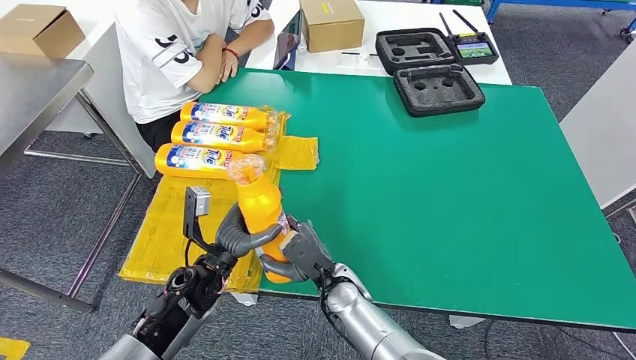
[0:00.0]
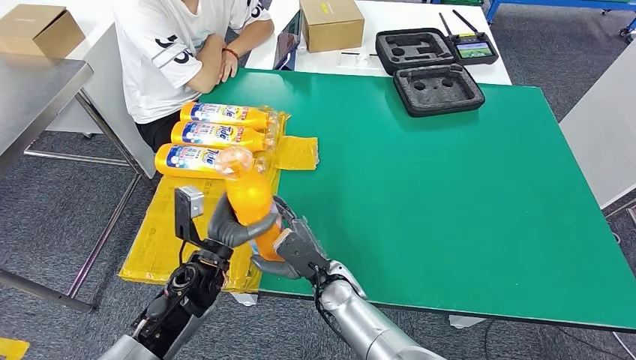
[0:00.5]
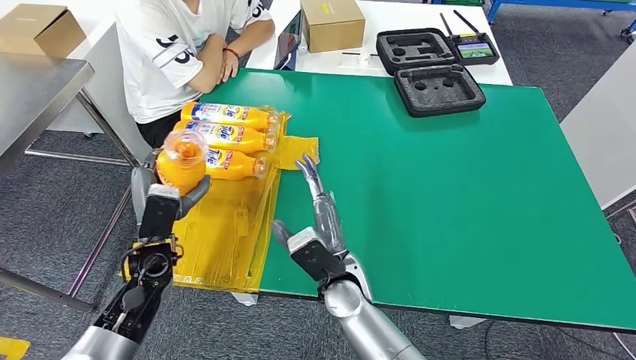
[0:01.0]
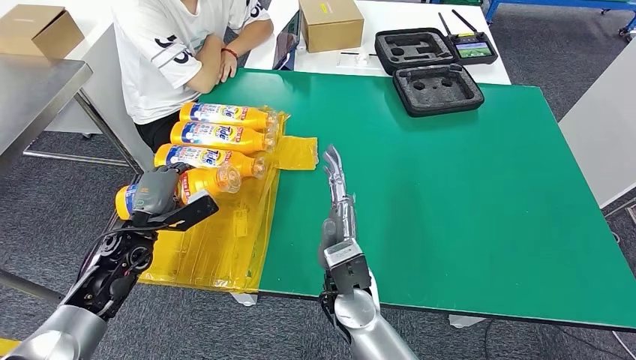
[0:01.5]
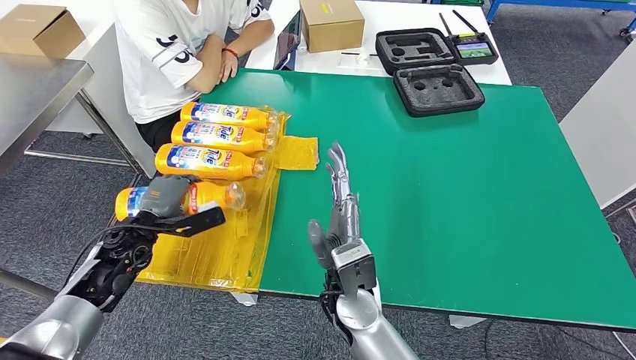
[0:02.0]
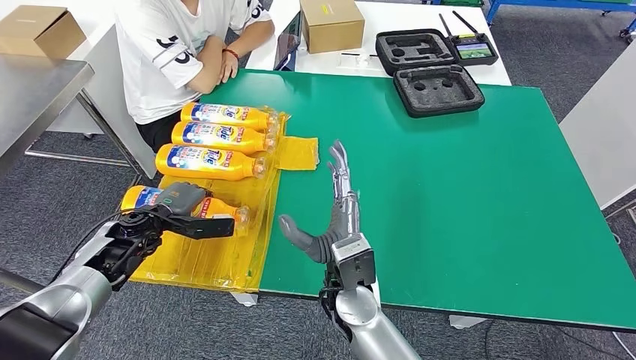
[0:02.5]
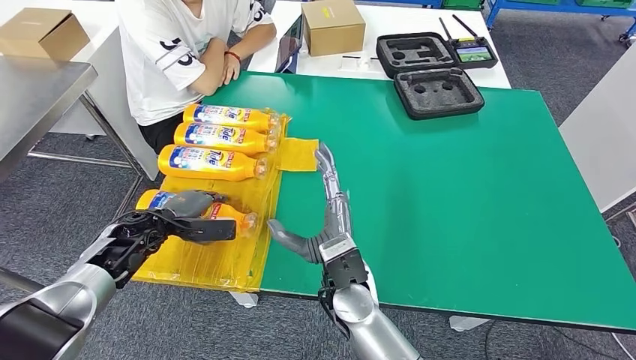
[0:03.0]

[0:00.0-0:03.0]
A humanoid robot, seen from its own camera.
Step, 0:00.0 to 0:02.5: Flip the fast-moving consumer goods bottle to the front side.
0:00.0 to 0:01.5: The left hand moves to the left, roughly 15 cm; the right hand goes about 10 cm upward.

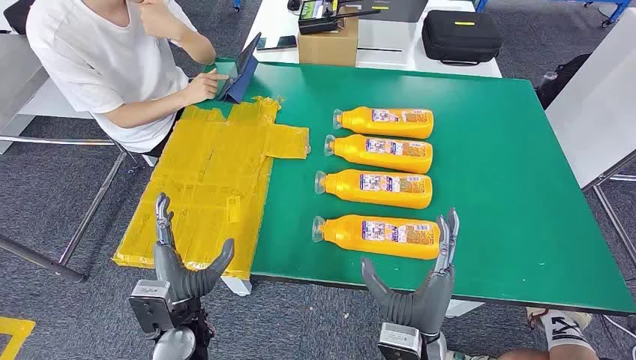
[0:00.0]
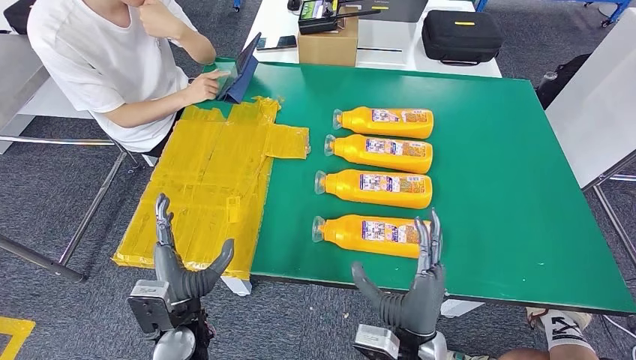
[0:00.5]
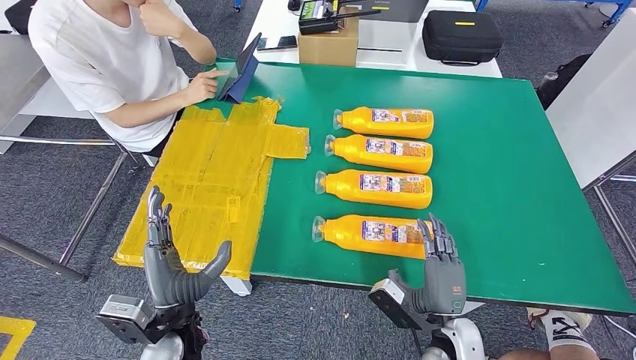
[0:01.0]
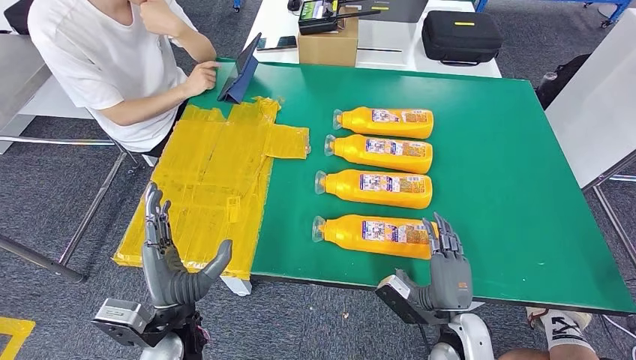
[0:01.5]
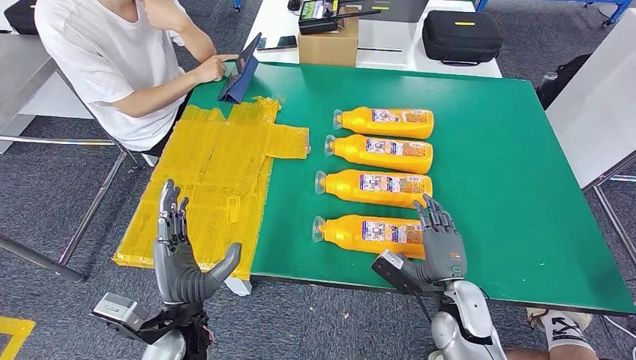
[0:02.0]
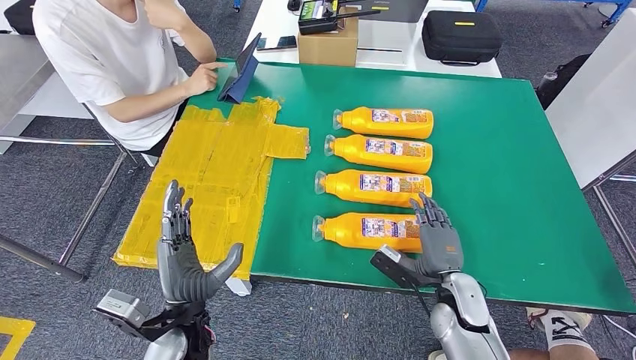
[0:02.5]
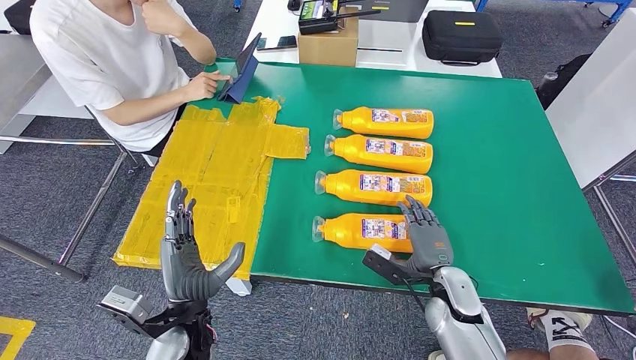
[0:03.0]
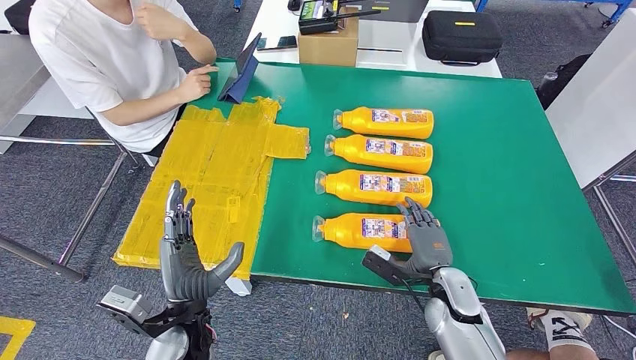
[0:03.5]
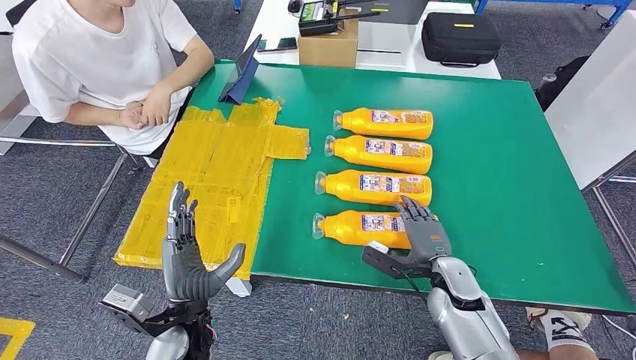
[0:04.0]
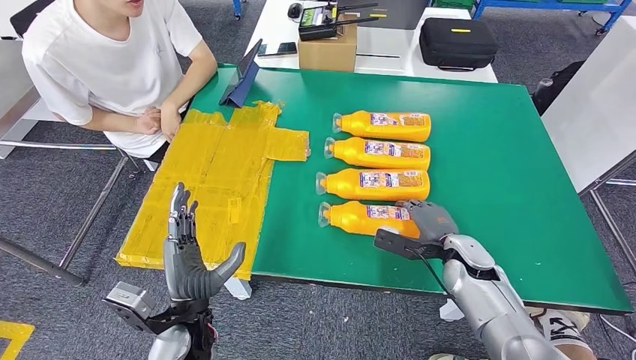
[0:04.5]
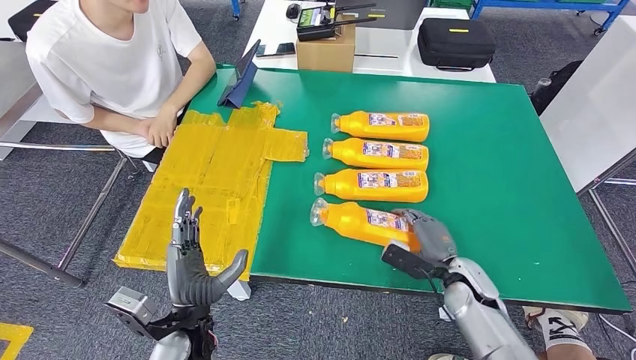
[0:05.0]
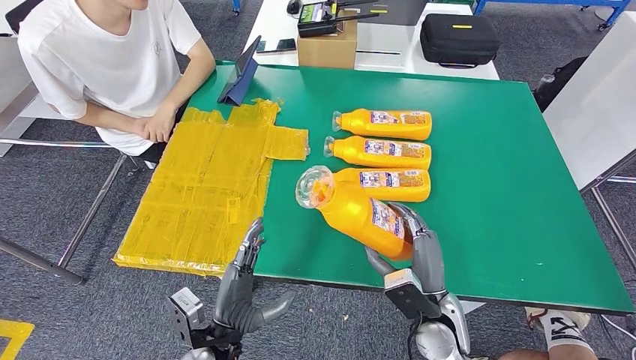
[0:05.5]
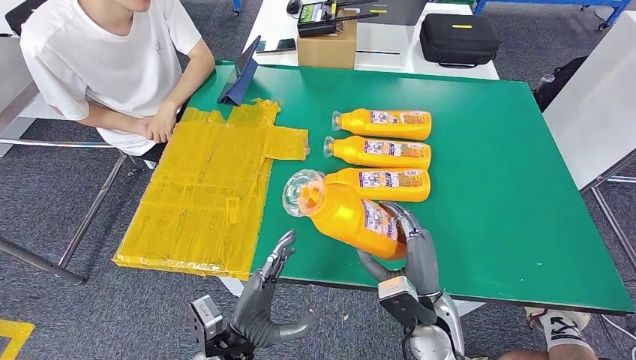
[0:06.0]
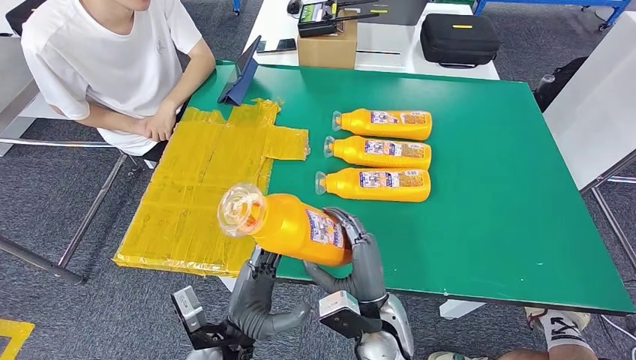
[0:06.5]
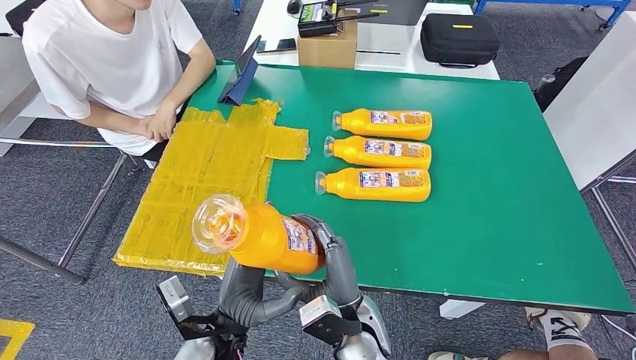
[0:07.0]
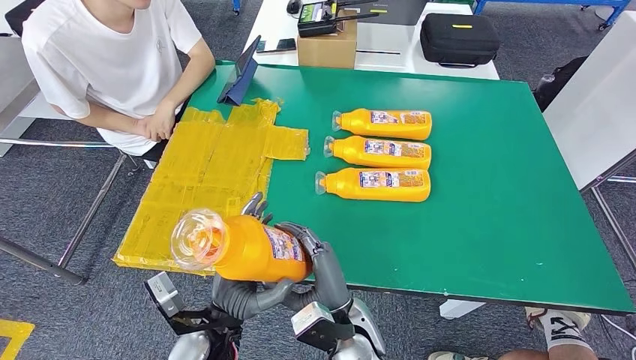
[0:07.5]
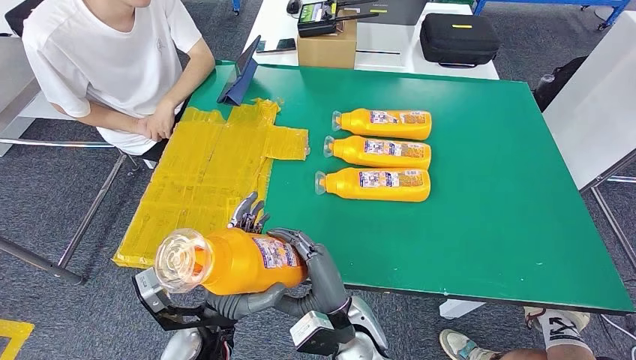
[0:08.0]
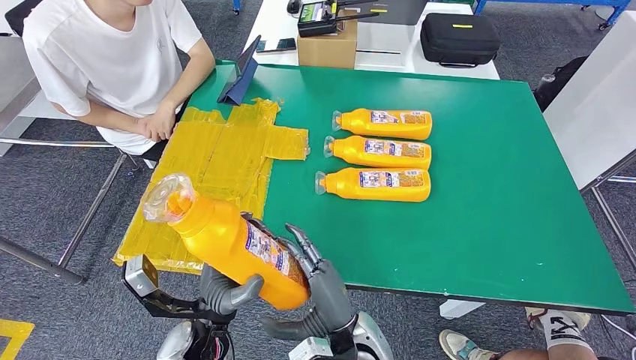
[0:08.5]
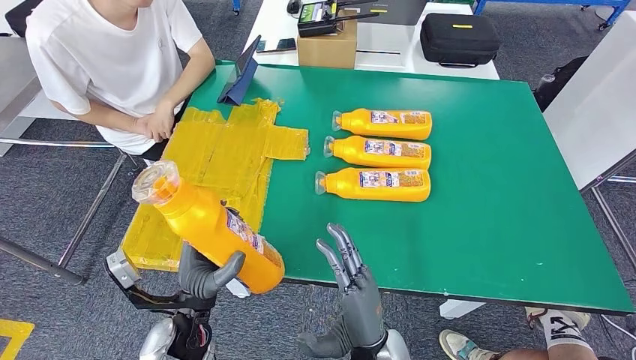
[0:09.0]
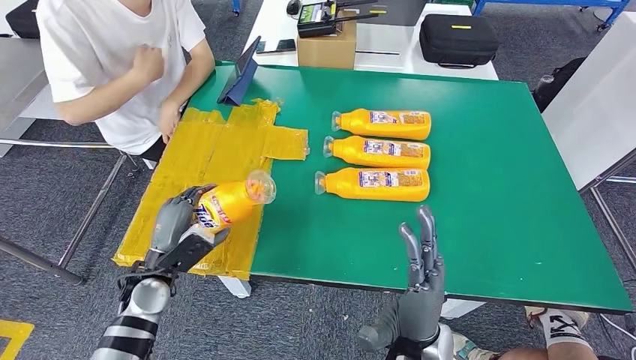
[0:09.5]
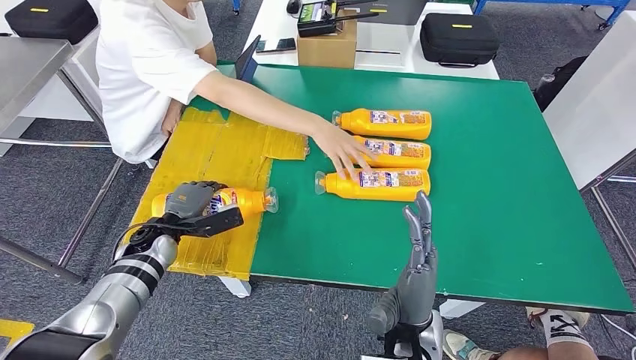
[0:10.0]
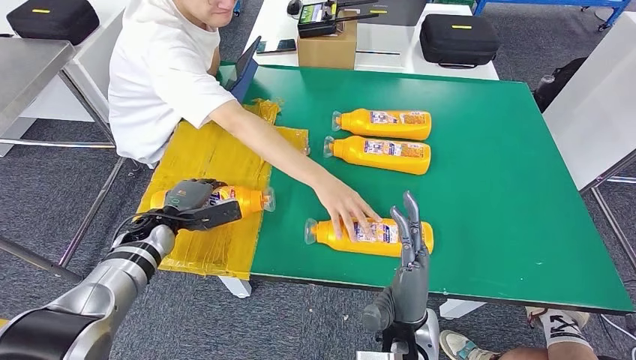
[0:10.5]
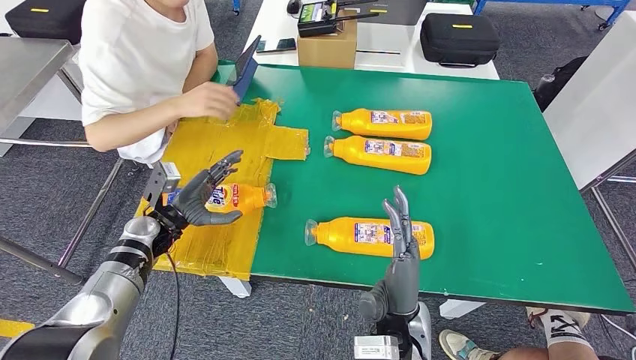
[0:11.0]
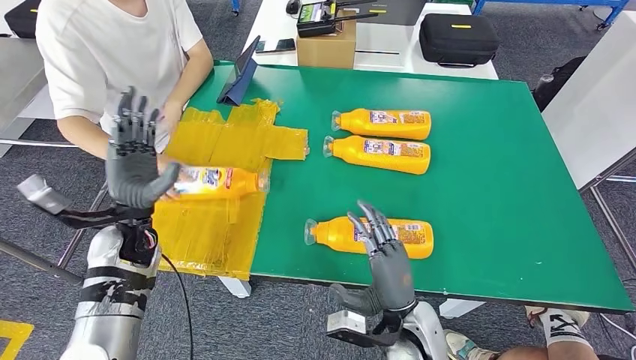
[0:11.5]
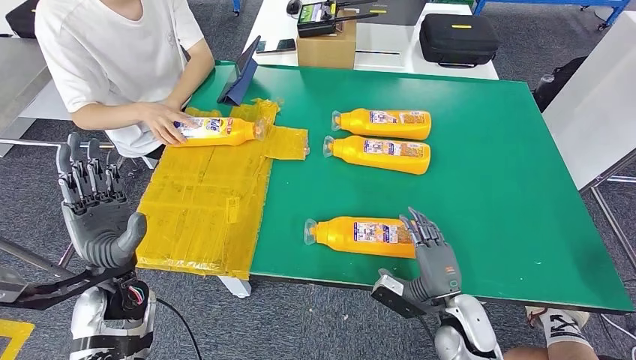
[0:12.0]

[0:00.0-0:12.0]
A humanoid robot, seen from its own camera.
Step, 0:00.0 to 0:05.5: Take the fast-moving consumer goods bottle from the table.
0:04.0 to 0:06.0: The right hand travels backward and to the left by roughly 10 cm. Meanwhile the left hand moves to the right, some 5 cm.
0:06.0 to 0:08.0: The right hand is displaced to the left by some 15 cm, while the left hand ends up roughly 5 cm from where it was.

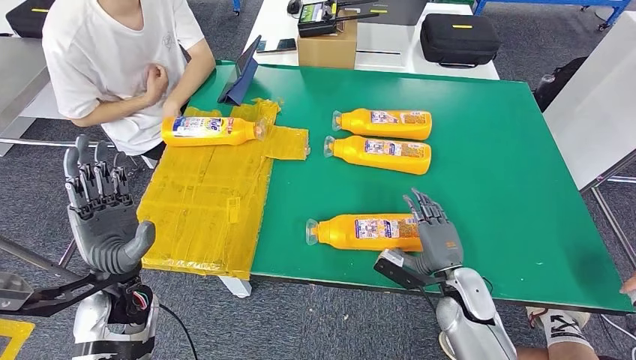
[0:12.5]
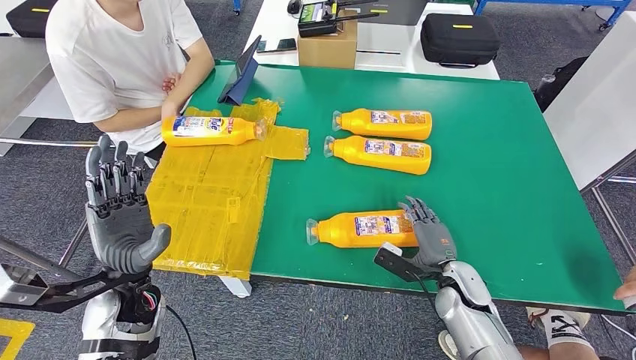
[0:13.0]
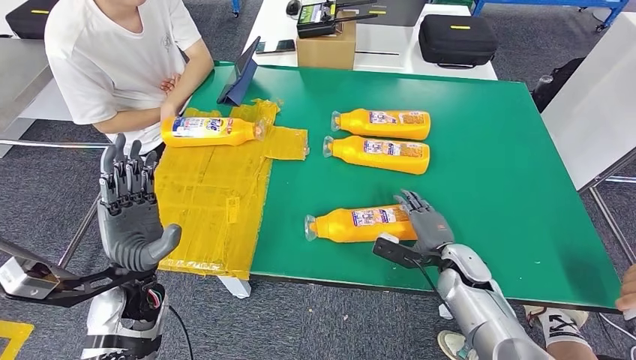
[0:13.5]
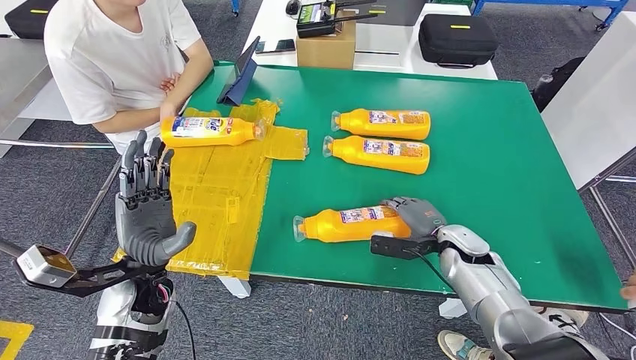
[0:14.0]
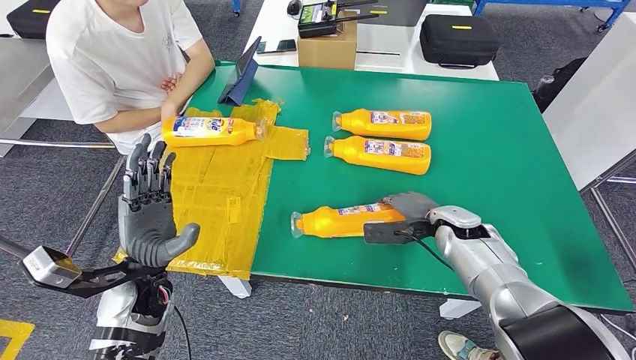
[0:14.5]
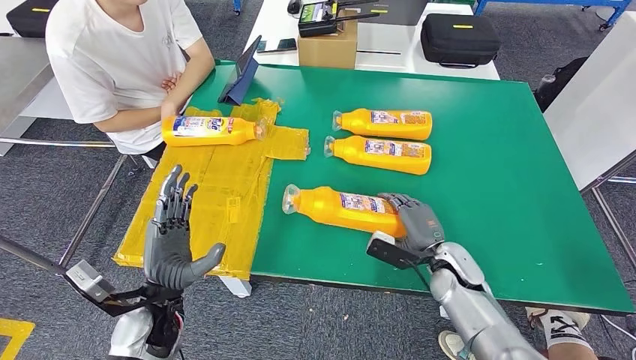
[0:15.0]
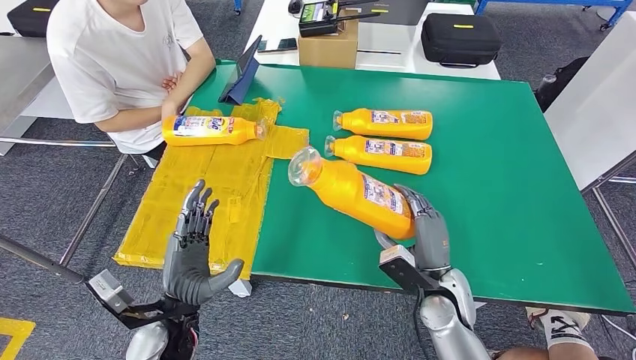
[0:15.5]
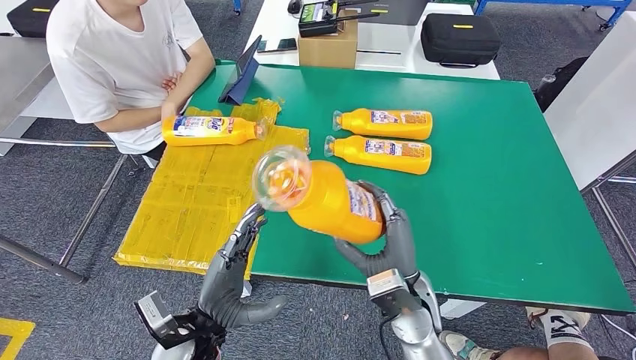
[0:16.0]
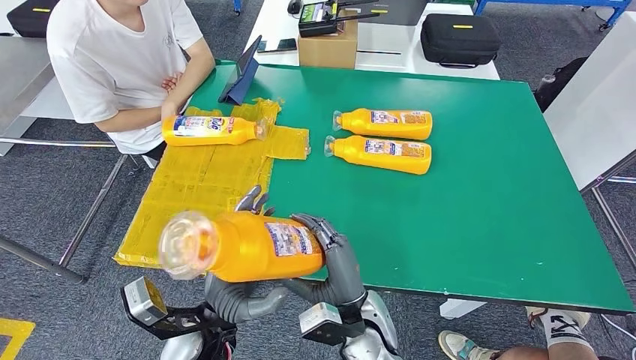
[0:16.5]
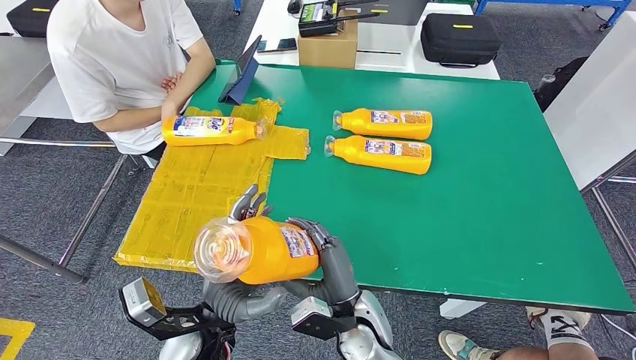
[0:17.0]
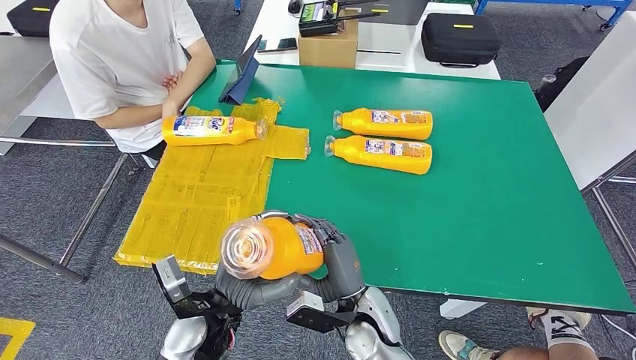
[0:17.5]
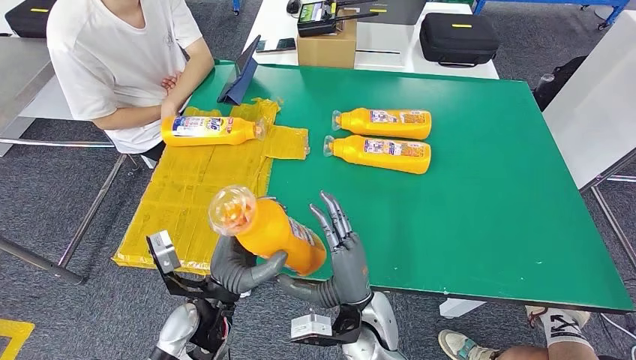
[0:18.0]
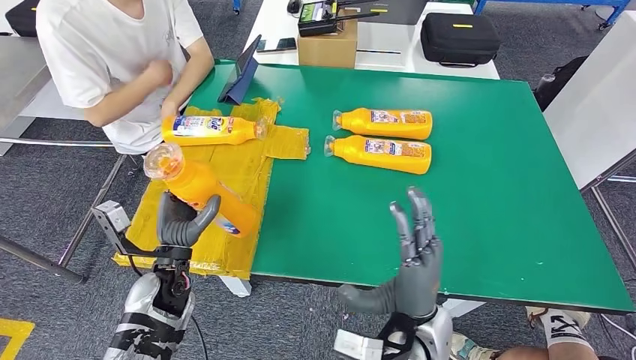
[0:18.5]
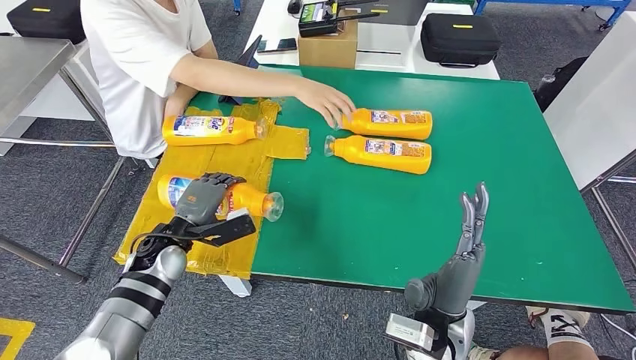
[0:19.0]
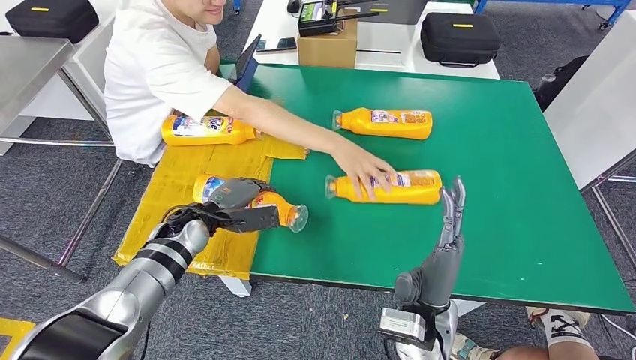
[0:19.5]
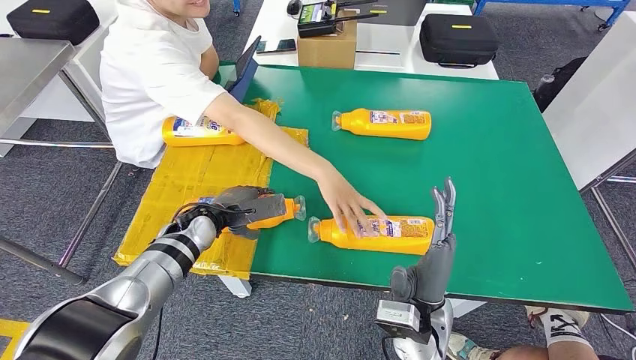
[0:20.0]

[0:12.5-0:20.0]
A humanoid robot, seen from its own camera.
Step, 0:12.5 to 0:17.5: Pick up the fast-moving consumer goods bottle from the table.
0:16.5 to 0:18.0: There are only small adjustments of the hands.
